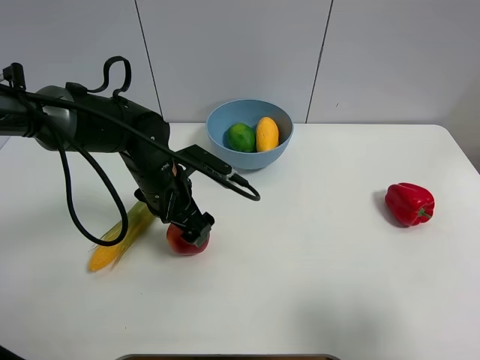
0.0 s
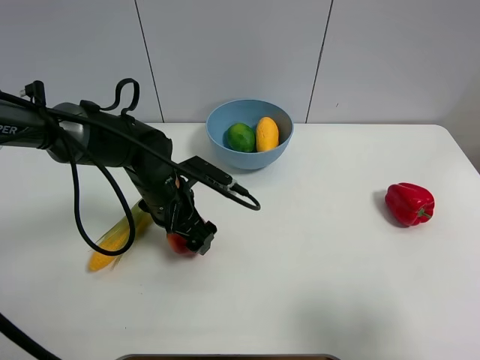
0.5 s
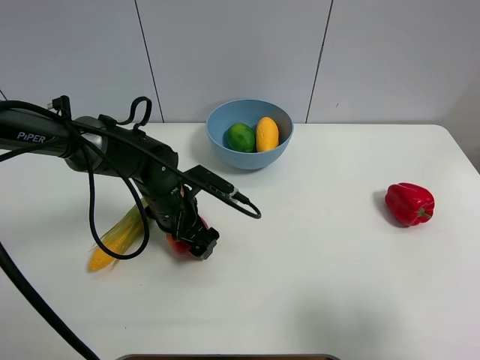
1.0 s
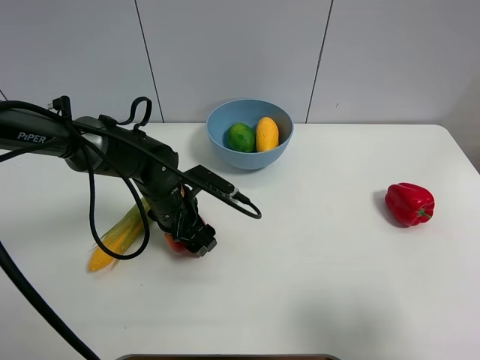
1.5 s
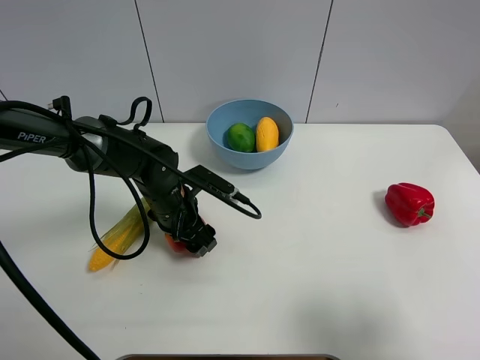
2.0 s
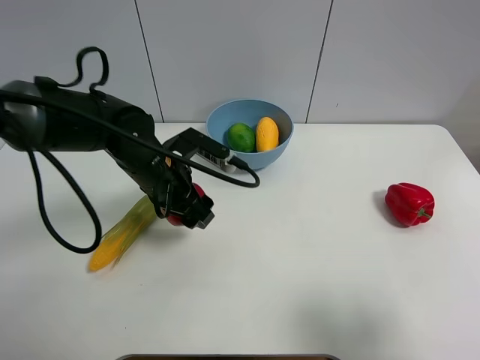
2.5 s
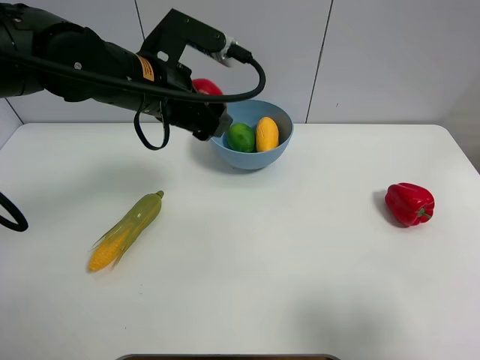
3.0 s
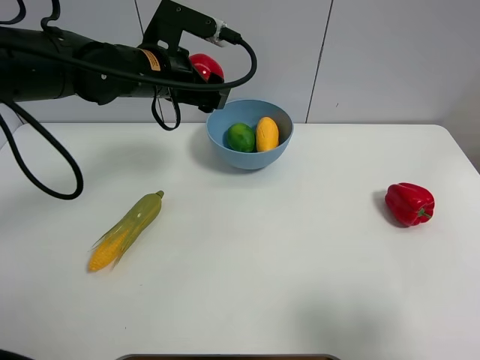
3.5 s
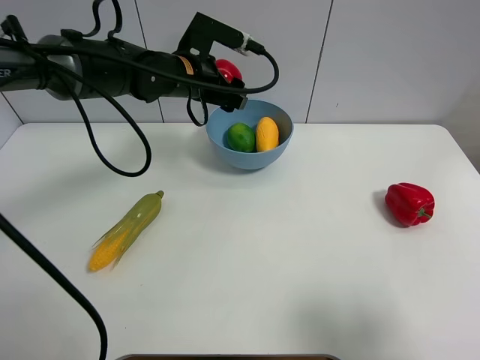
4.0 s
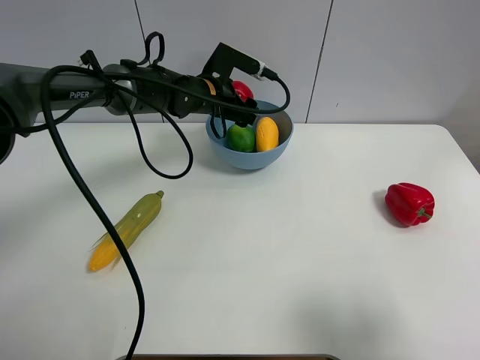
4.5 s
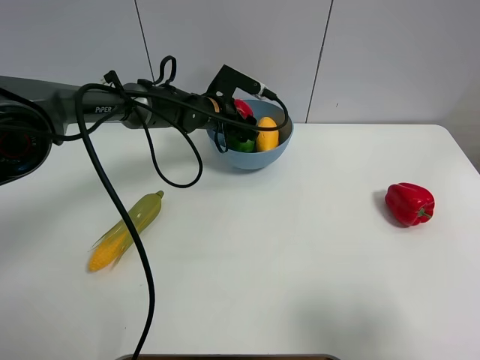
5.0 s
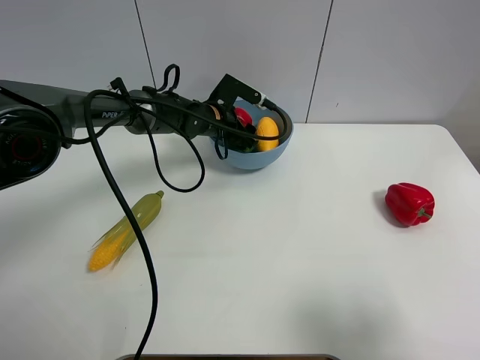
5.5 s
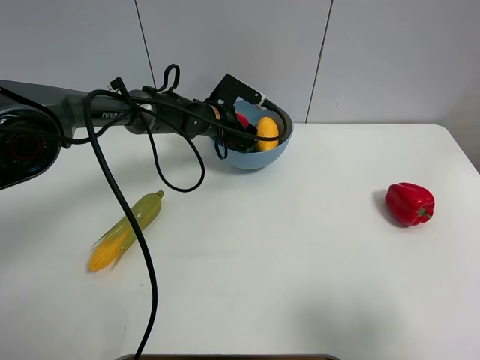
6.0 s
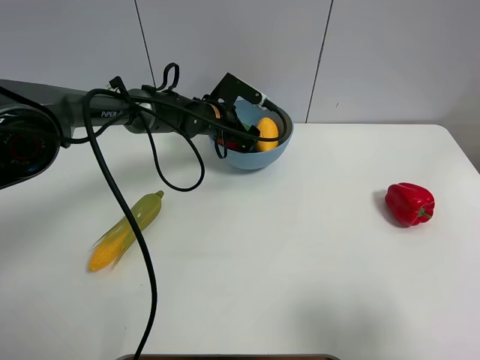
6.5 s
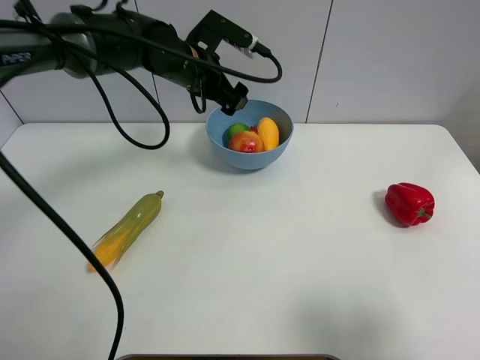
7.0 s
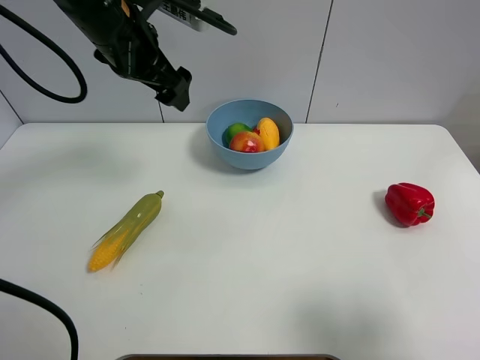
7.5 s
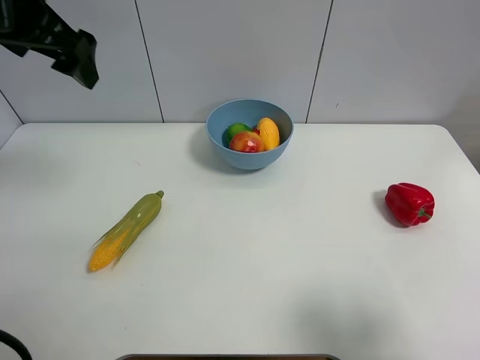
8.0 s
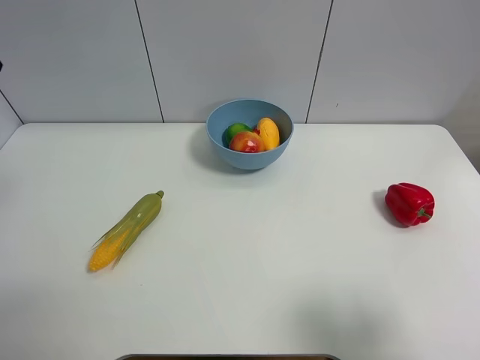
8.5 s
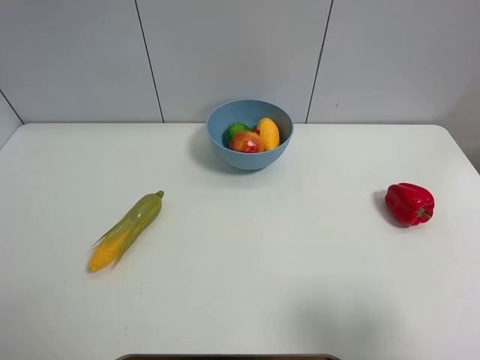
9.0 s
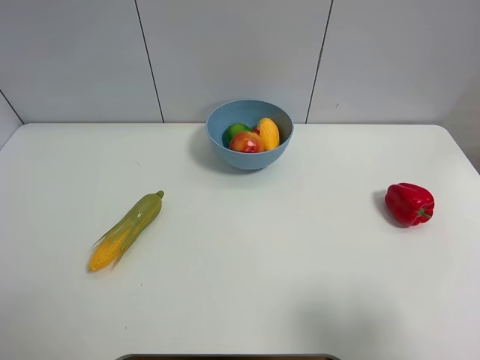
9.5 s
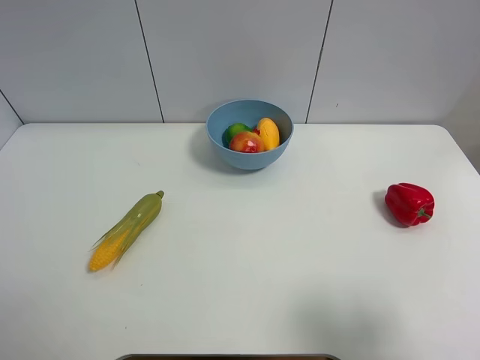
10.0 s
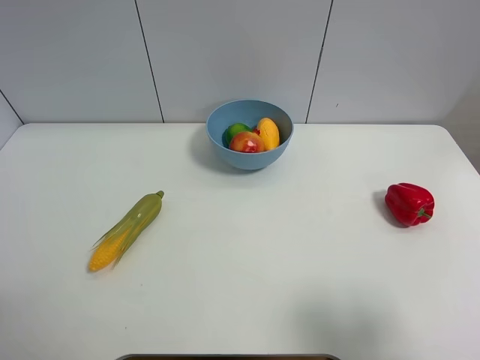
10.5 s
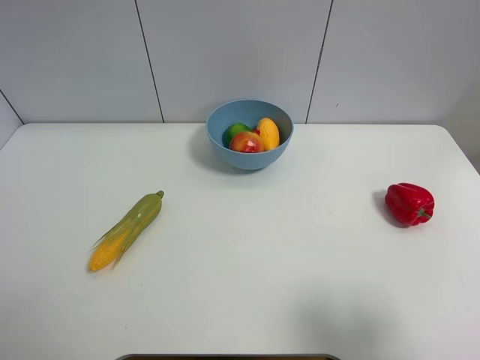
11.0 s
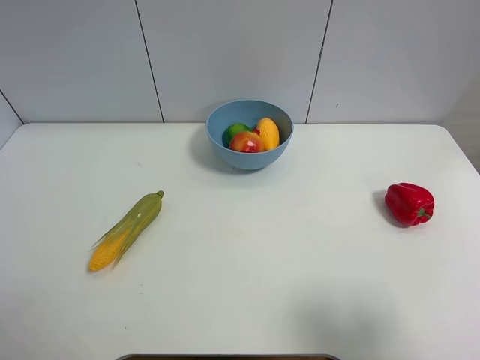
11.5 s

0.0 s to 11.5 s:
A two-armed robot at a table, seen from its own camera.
Task of the whole recording: Put the three fruits on the table into a bowl.
Step, 2.0 to 6.0 s: Place the pomegranate in the blue bowl with left gripper.
0.0 to 2.0 s: The left gripper closes its fingers.
2.0 to 4.0 s: The left gripper goes some 20 cm upward and forward.
4.0 to 6.0 s: The left gripper travels downward by roughly 10 cm, and opens its fingers.
6.0 to 7.5 s: The left gripper moves upward, backward and to the left, some 25 cm, and opens up.
7.5 to 9.5 s: The left gripper heads backward and to the left, covering approximately 35 cm.

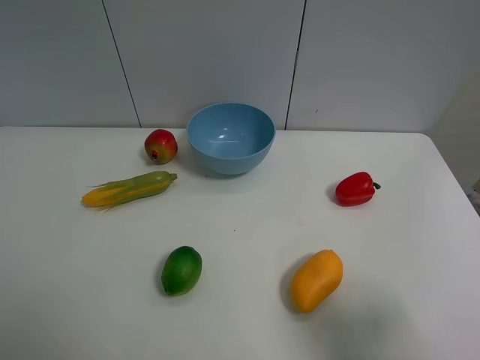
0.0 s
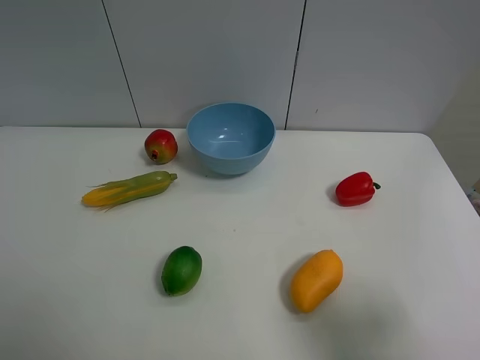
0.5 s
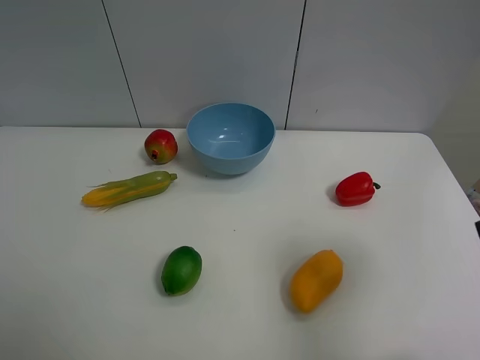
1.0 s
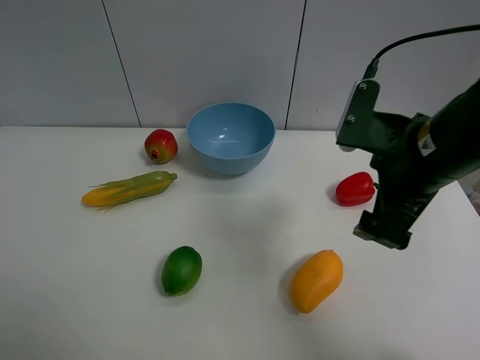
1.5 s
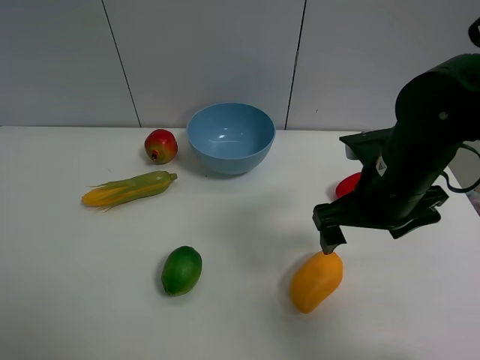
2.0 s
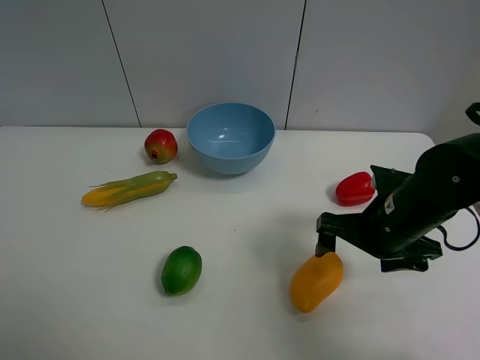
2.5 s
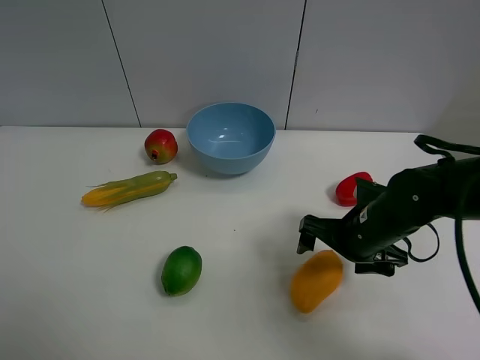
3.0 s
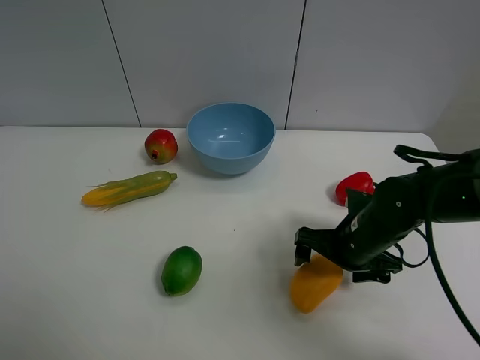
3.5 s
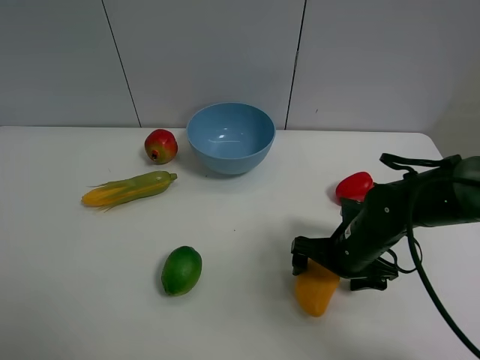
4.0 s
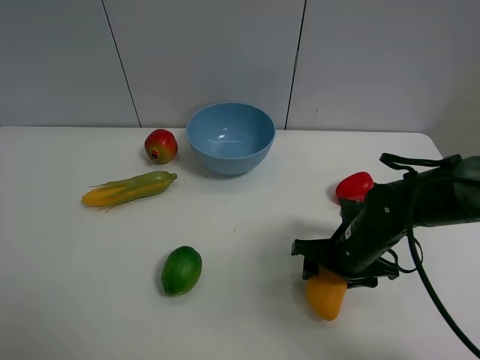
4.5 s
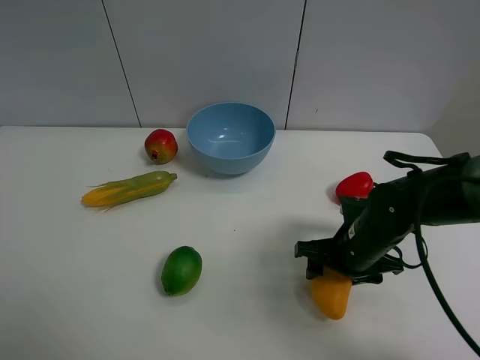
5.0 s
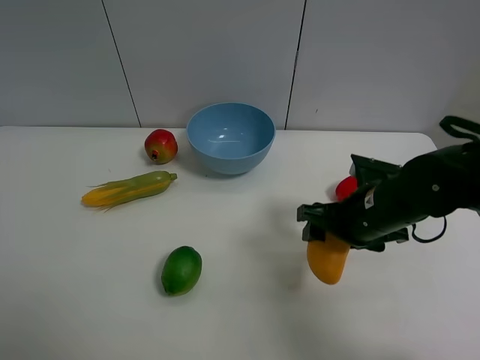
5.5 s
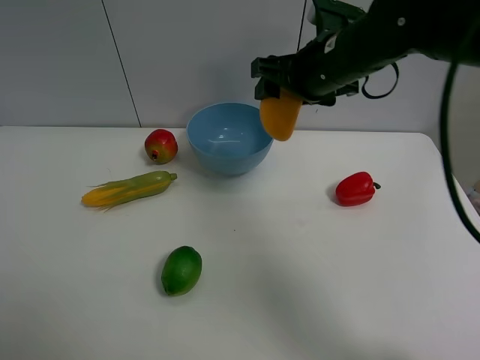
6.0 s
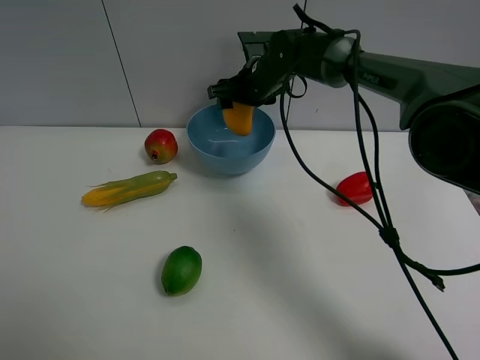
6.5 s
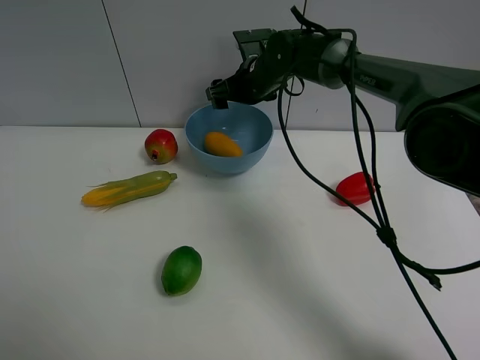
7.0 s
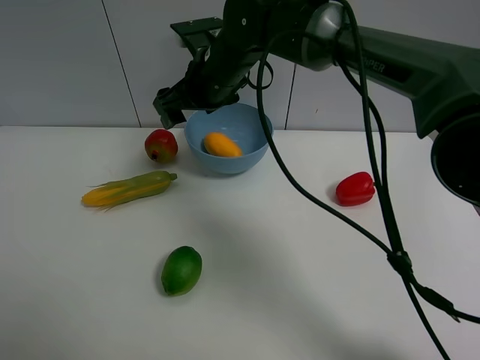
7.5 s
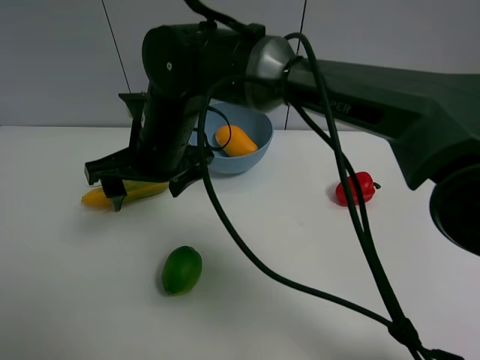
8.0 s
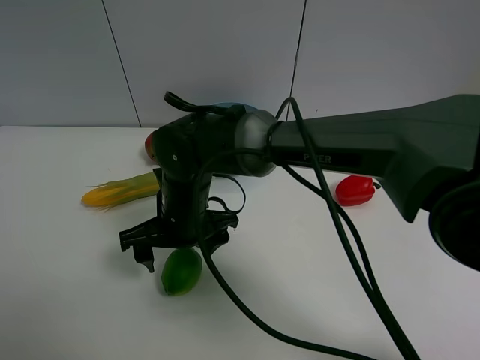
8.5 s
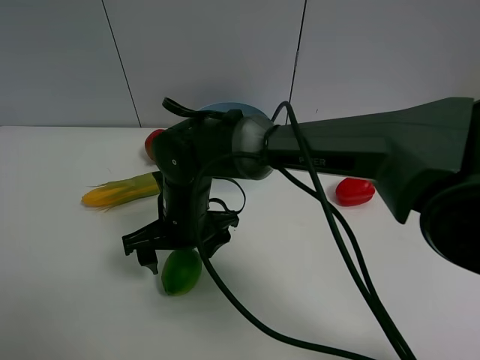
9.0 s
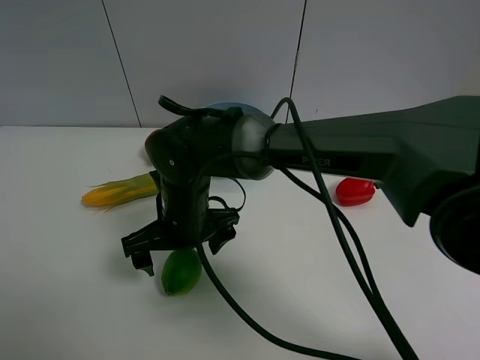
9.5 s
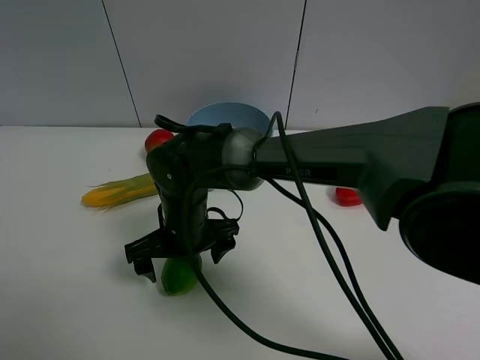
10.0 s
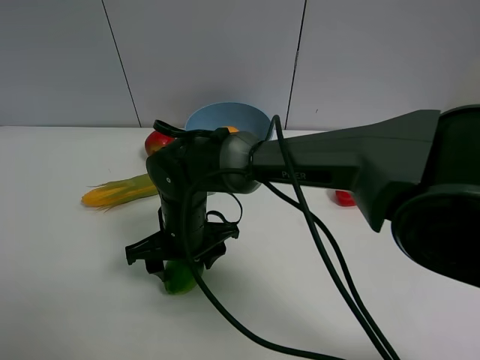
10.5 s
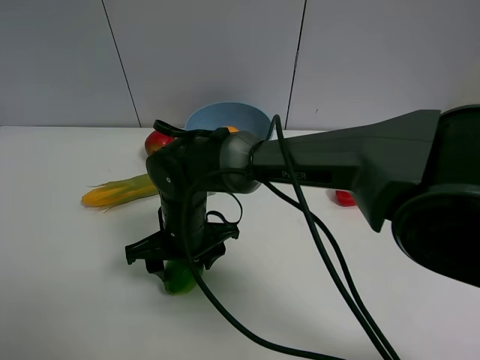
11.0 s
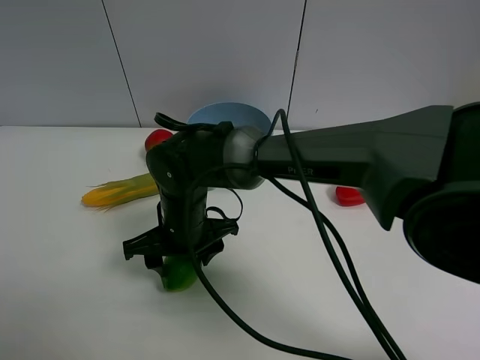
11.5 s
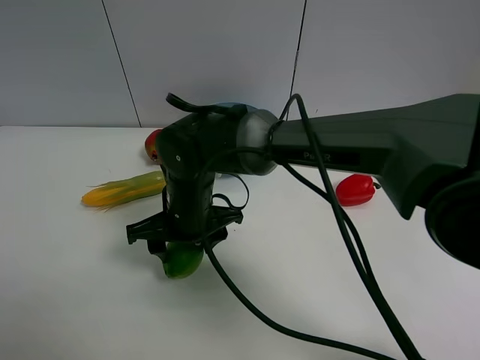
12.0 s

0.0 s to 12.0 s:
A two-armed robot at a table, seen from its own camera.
Task of the whole recording: Put the three fruits on the table into a bowl.
Step, 0.0 to 4.0 s: Grasp the mango with right gripper.
Step, 4.5 to 6.5 s: Place the mango in the blue bowl with right gripper.
Step, 7.0 to 10.5 s: Grasp the green lemon with right gripper.
0.0 to 2.0 s: The right gripper is displaced forward and to the left by about 25 cm.
2.0 to 4.0 s: The right gripper shifts roughly 15 cm downward.
4.0 to 6.0 s: The right gripper travels upward and forward by roughly 25 cm, and closes.
6.0 to 8.0 s: The right gripper is displaced to the left and backward by some 20 cm, and opens its fingers.
8.0 to 10.0 s: The right gripper shifts roughly 10 cm downward, and opens.
10.0 to 12.0 s: The right gripper closes up.

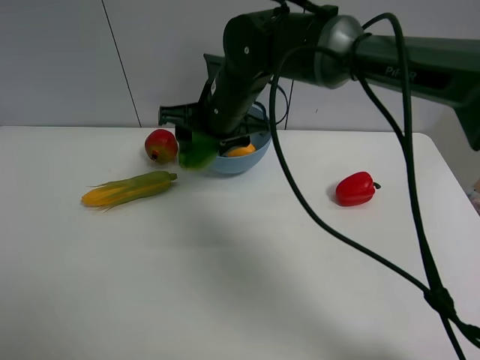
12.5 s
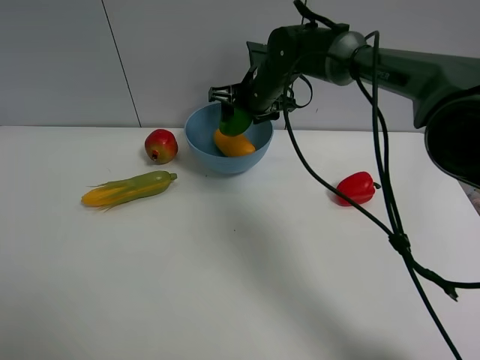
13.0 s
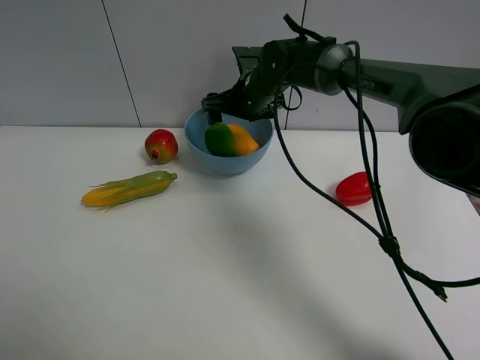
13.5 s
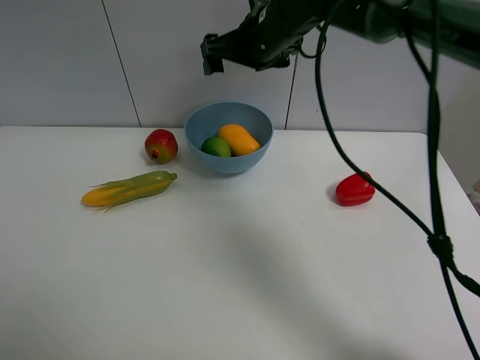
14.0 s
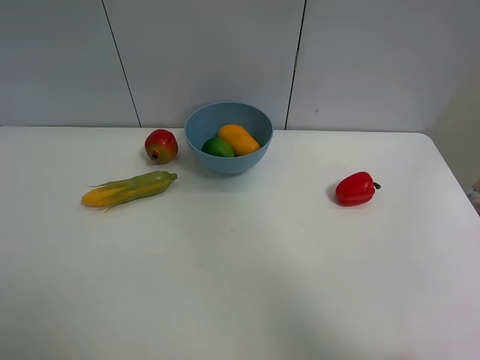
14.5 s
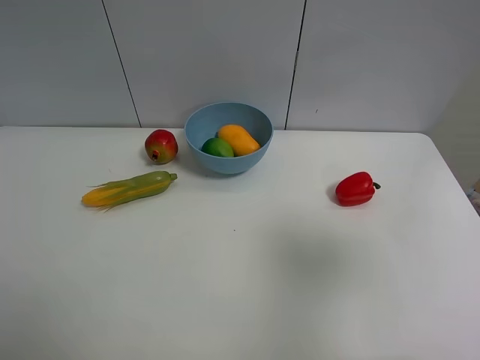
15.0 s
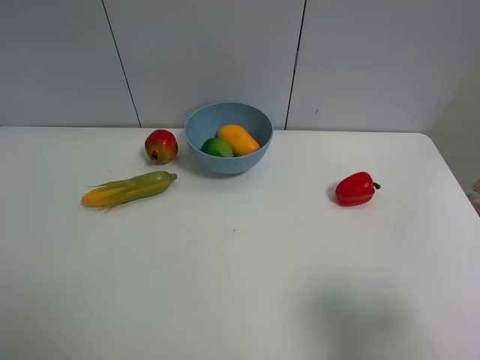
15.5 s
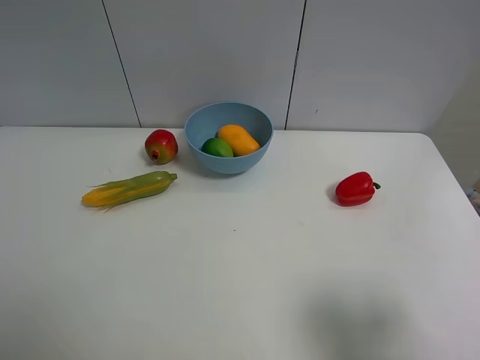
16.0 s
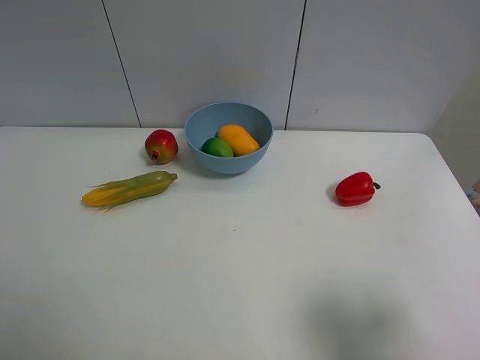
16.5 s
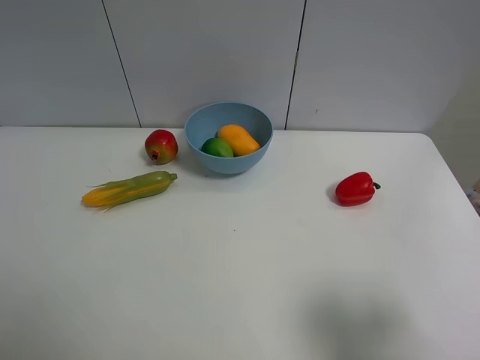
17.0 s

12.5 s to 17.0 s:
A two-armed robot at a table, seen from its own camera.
Task of the whole recording: Put the three fruits on the table into a bowl.
12.5 to 14.5 s: The right gripper travels upward and to the right by some 35 cm, and opens up.
14.5 to 17.0 s: The right gripper heads backward and downward, covering approximately 35 cm.
